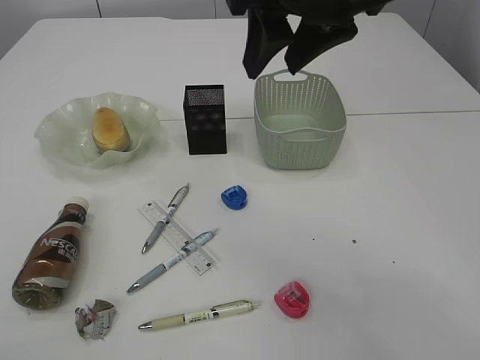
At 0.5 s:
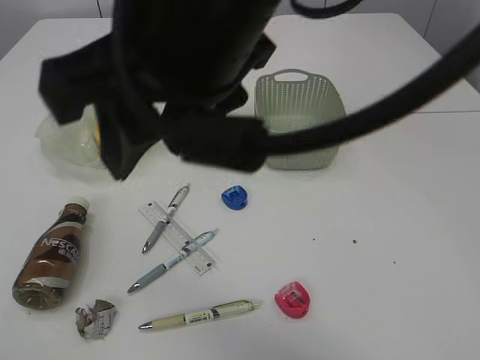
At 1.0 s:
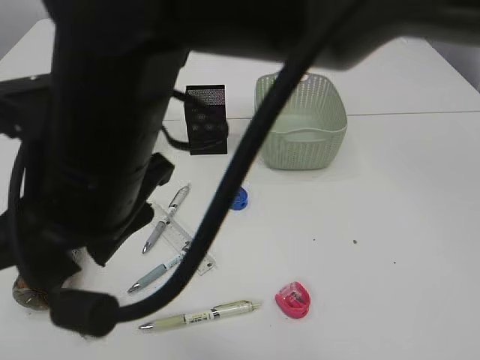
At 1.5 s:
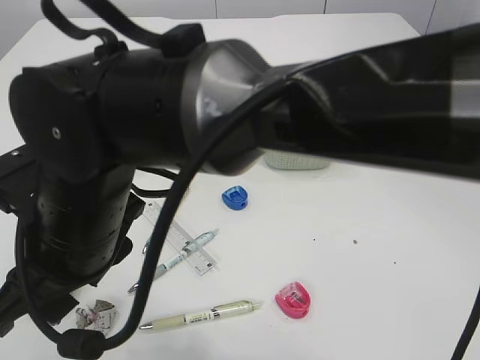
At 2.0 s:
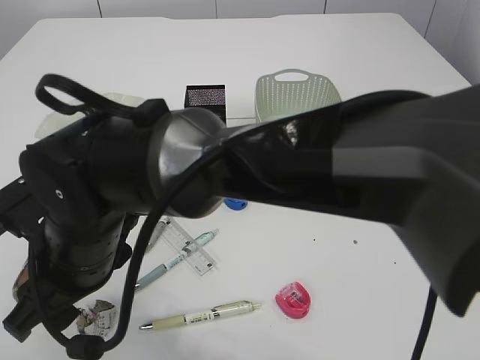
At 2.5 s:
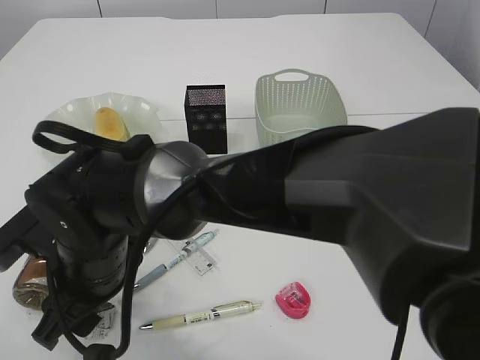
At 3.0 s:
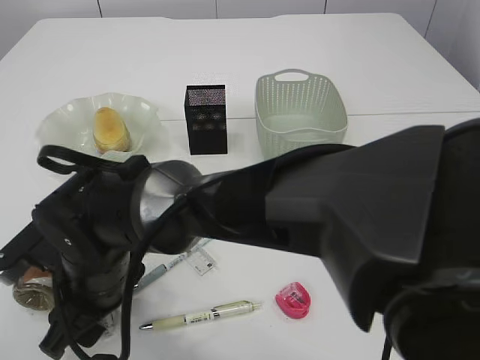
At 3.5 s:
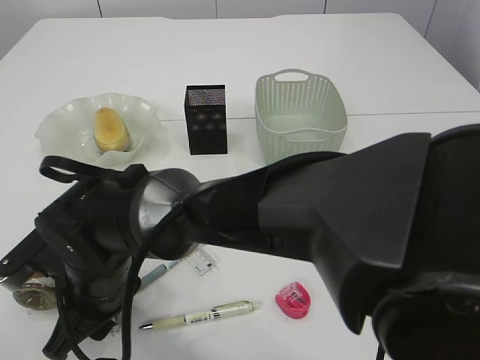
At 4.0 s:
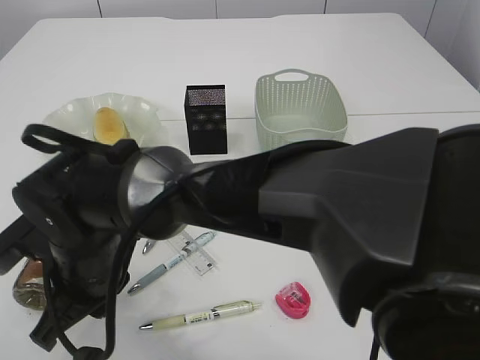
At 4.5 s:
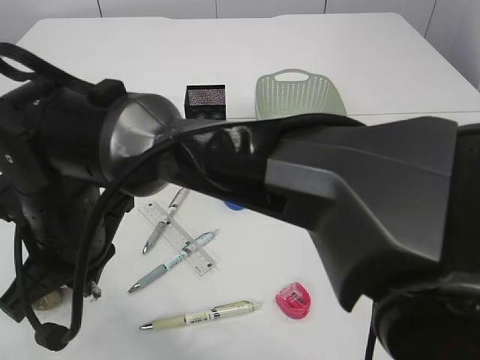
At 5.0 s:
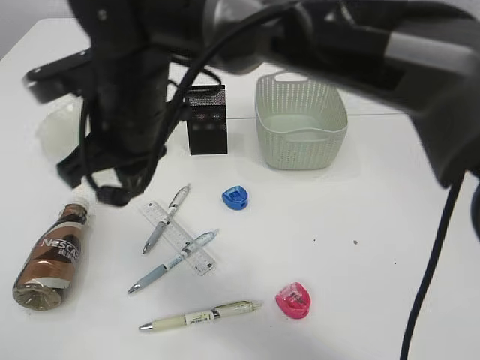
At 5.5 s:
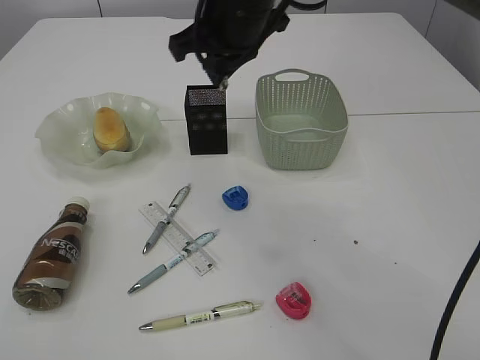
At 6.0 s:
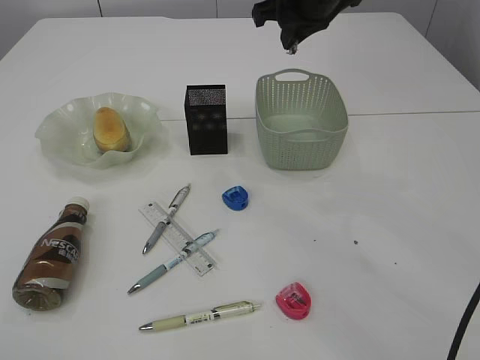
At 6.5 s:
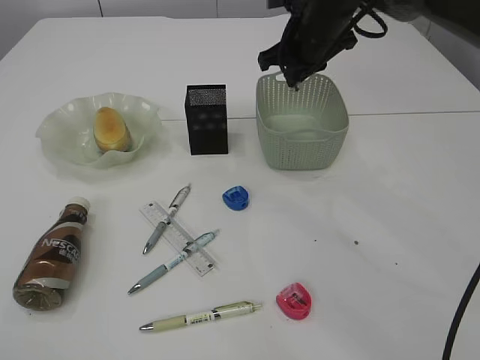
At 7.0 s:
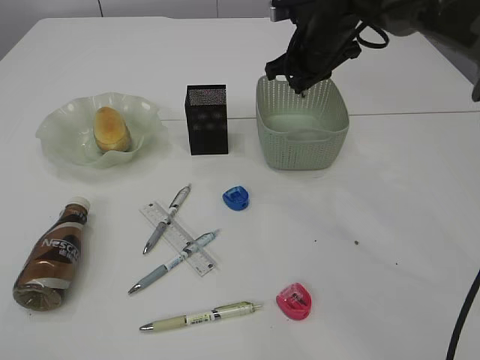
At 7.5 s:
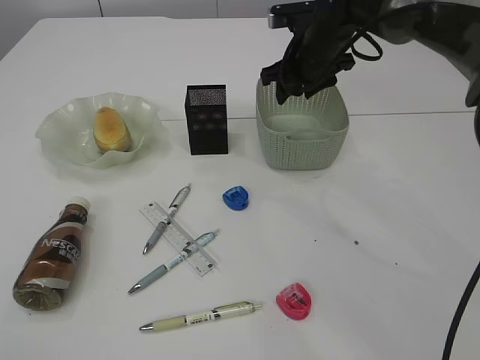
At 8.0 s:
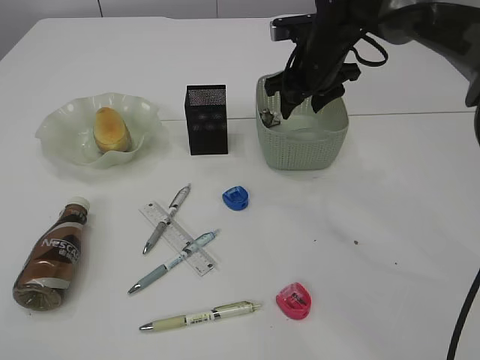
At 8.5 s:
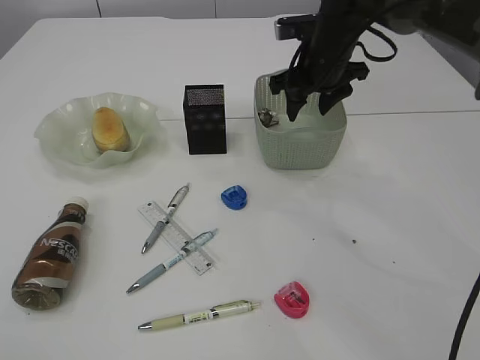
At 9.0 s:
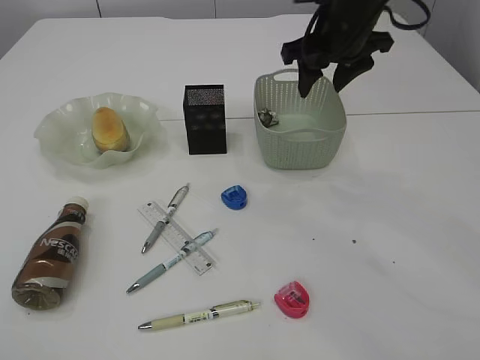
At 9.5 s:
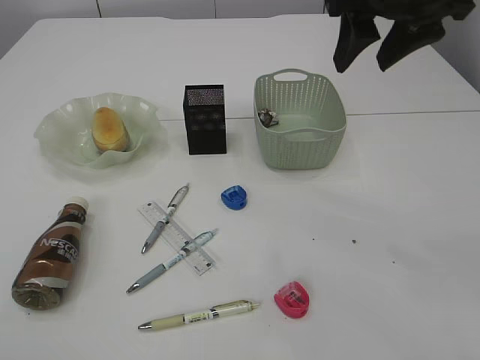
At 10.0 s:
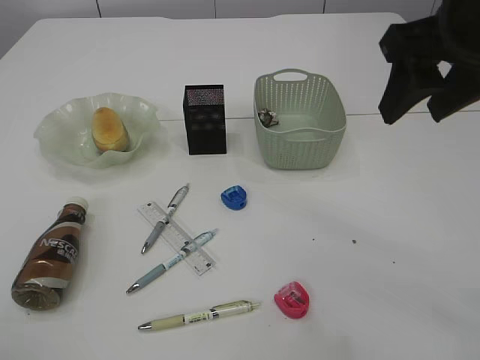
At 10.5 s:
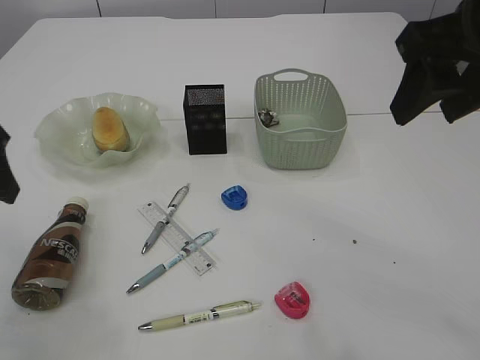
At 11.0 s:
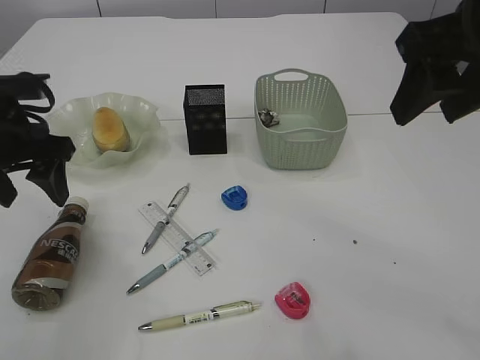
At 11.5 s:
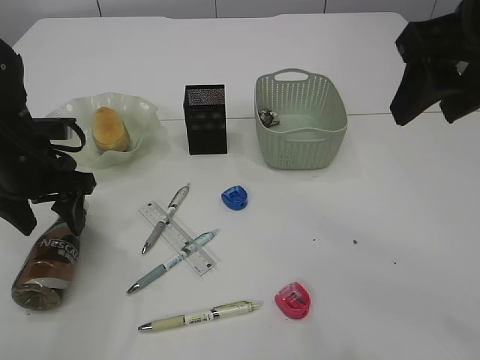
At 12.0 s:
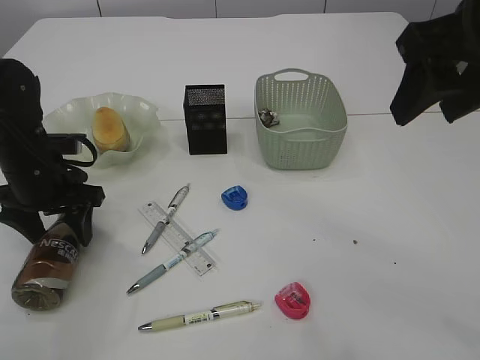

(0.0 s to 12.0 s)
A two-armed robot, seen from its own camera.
Step, 0.0 s - 4.5 s: Pick up the waste paper.
Step, 5.0 s - 7.5 s: Place the waste paper in the basket.
0.0 s - 2.0 s: The left gripper is displaced backward by about 10 cm. Meanwhile the right gripper travels to the left and downward by about 30 cm.
2.0 s - 4.0 s: The right gripper closes.
4.0 s - 6.0 s: The right gripper heads to the right, forward and upward, covering roughly 40 cm.
6.0 s - 8.0 s: The right gripper travels downward by approximately 10 cm, and opens.
8.0 s - 10.0 s: The right gripper is displaced backward and upward by roughly 25 cm. Meanwhile the left gripper shifts about 15 cm forward and downward.
10.0 s - 12.0 s: The left gripper is displaced downward and forward by approximately 25 cm, and opens up.

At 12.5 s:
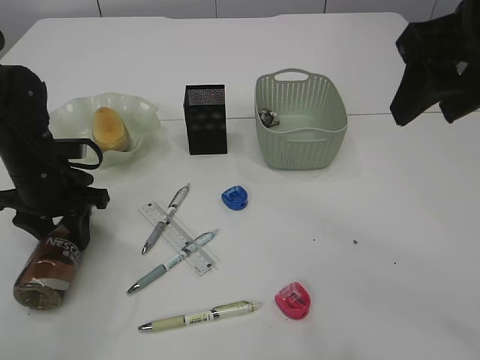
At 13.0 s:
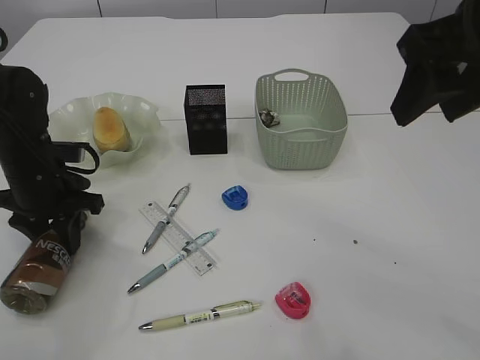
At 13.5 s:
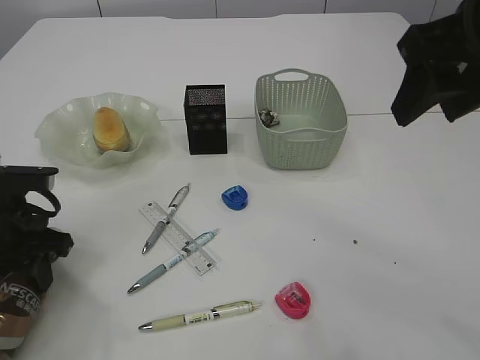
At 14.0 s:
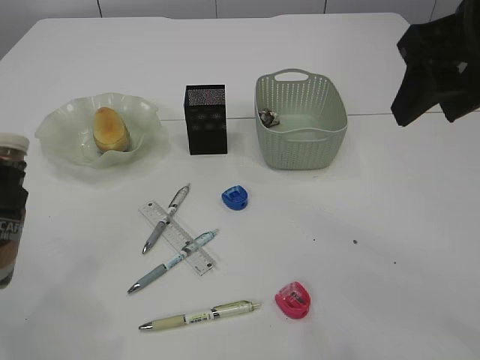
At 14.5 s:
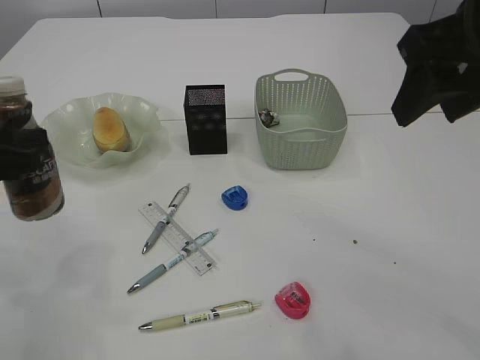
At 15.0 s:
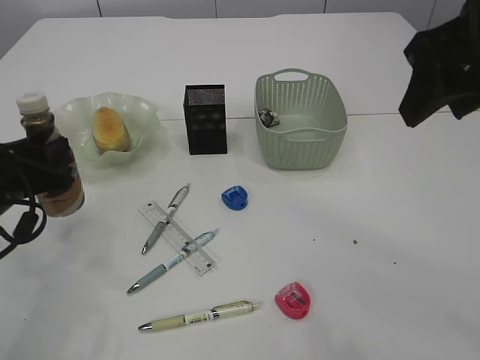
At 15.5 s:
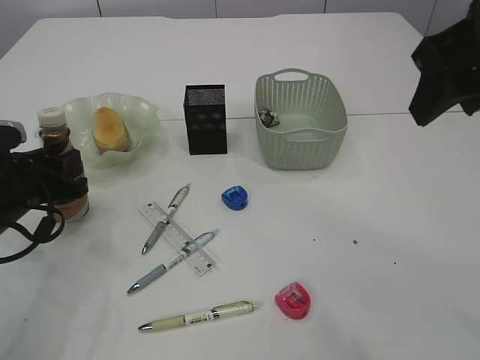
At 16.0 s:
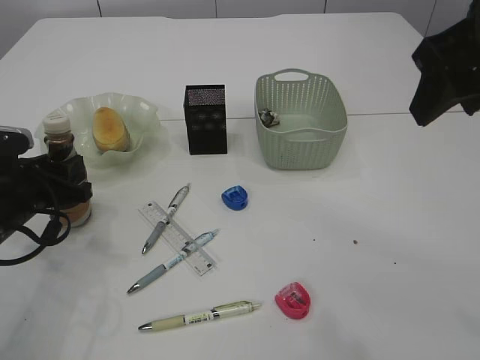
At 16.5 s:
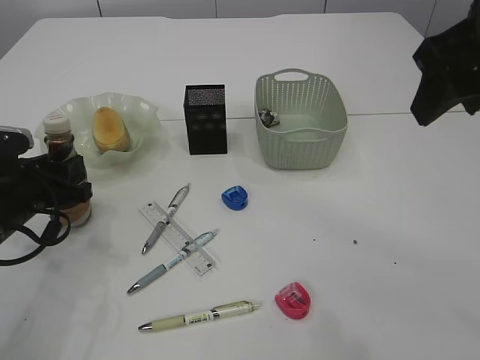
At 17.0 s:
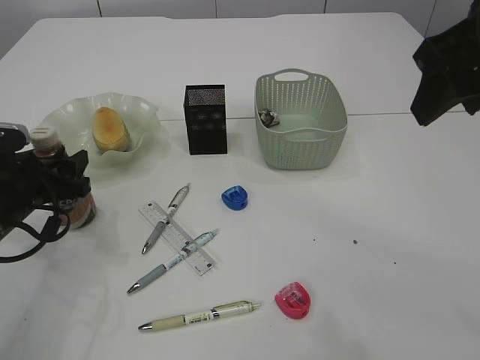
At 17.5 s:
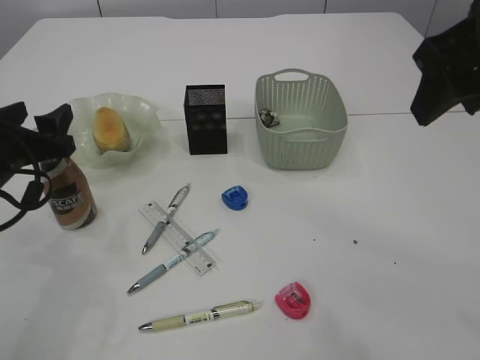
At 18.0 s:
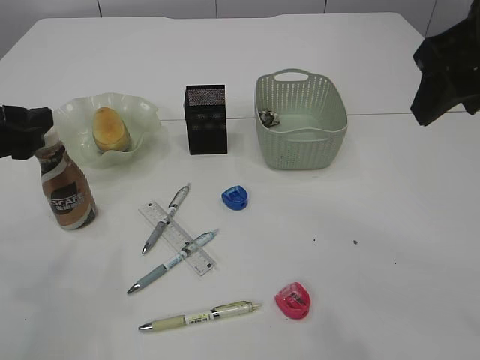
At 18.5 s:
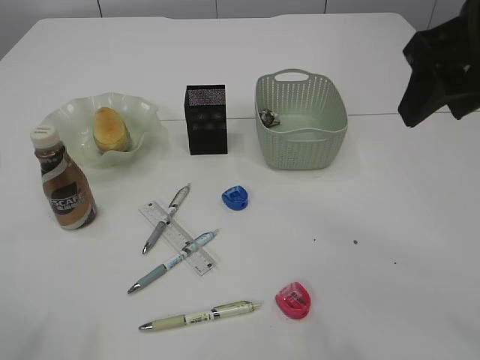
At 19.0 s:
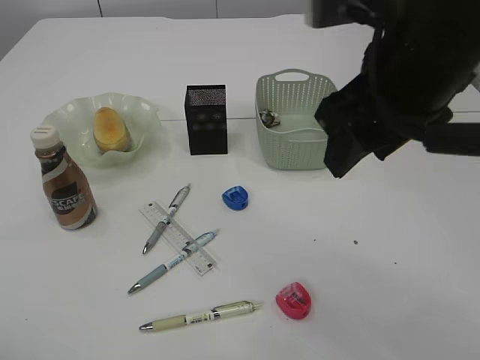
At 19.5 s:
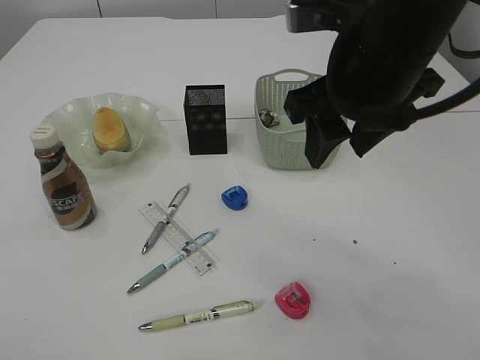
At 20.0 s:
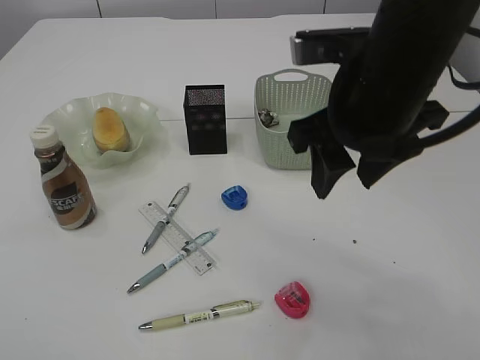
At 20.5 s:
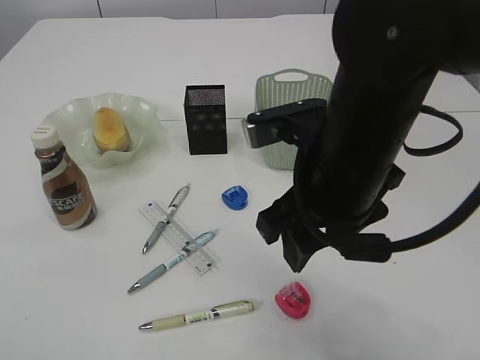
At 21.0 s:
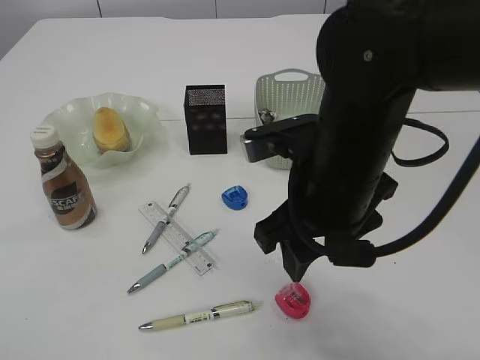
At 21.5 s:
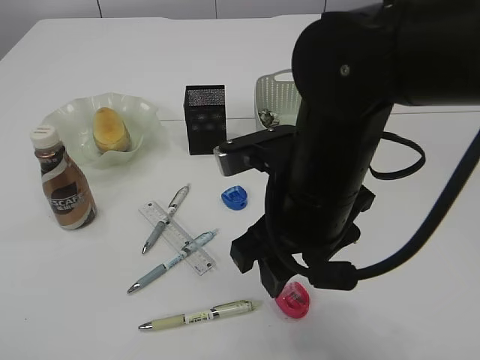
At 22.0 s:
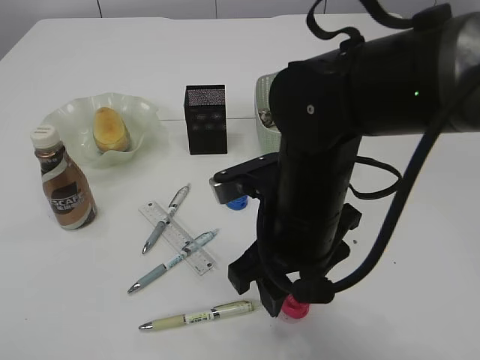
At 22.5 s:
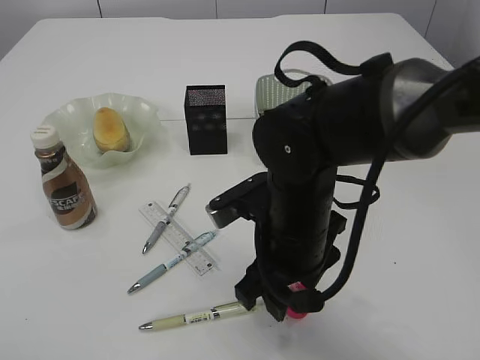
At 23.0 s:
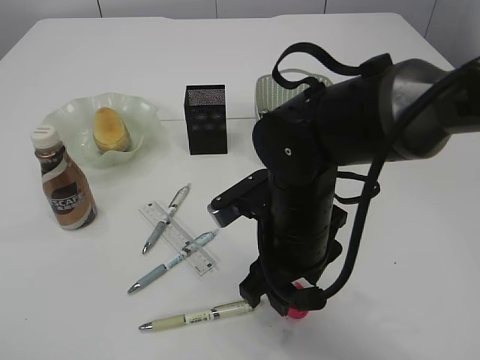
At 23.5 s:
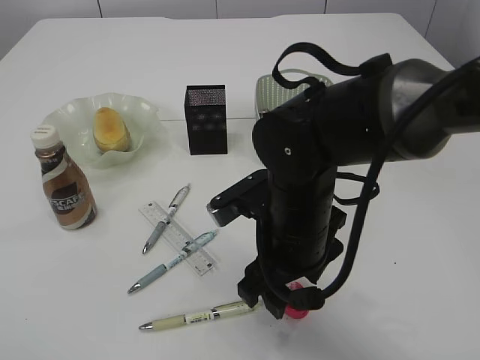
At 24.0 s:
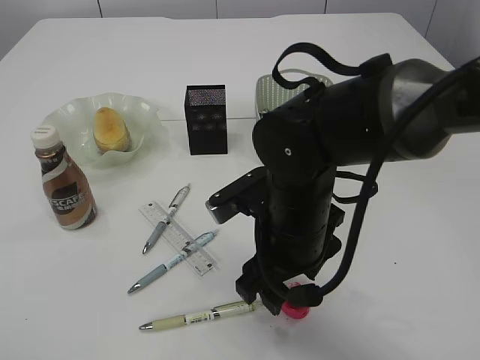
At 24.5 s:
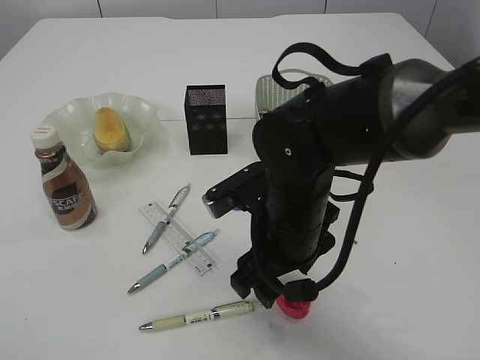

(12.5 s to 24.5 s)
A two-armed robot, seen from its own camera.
Step, 14.5 s - 18.0 s: Place the bottle.
12.5 s - 14.5 s: The left gripper goes some 15 cm backward and upward.
14.5 s - 16.5 s: The left gripper heads downward and forward, covering approximately 10 cm.
16.5 s - 18.5 s: The left gripper travels upward and backward by about 20 cm.
18.5 s - 20.5 s: The right gripper moves downward and to the left, about 15 cm; the left gripper moves backward, some 10 cm.
20.5 s - 22.5 s: The right gripper shifts about 10 cm downward. Meanwhile the left gripper is displaced backward by about 5 cm.
22.5 s - 24.5 s: There are only small adjustments of the grippers.

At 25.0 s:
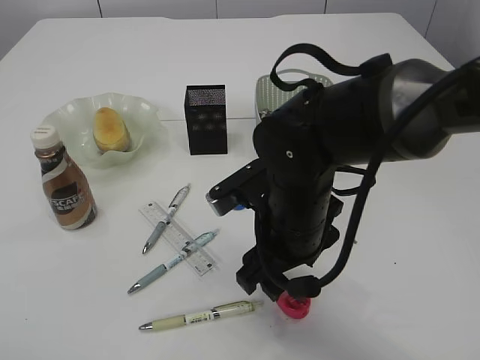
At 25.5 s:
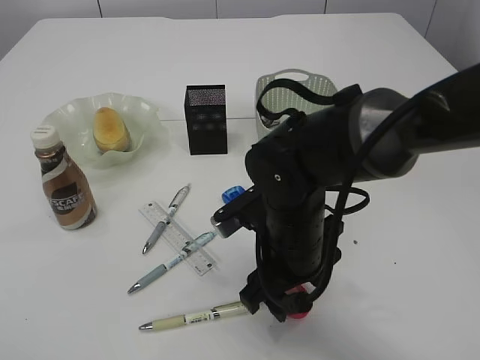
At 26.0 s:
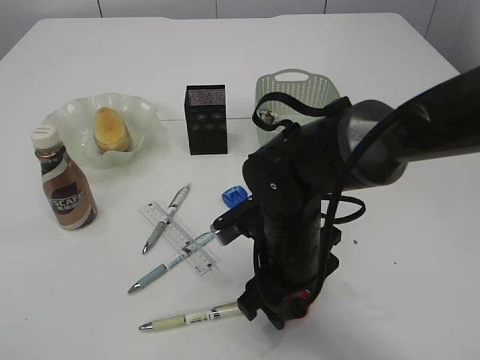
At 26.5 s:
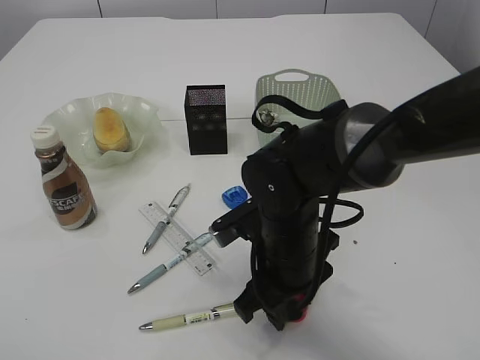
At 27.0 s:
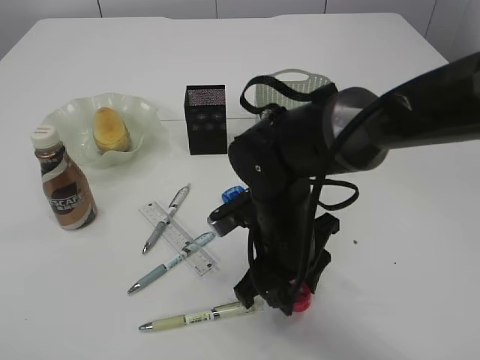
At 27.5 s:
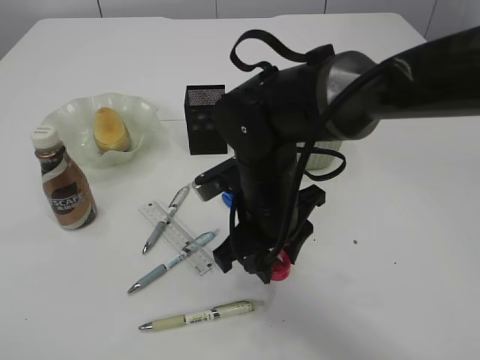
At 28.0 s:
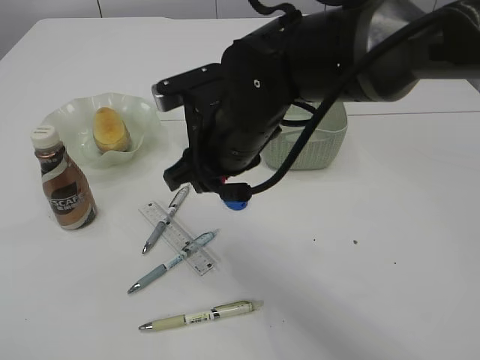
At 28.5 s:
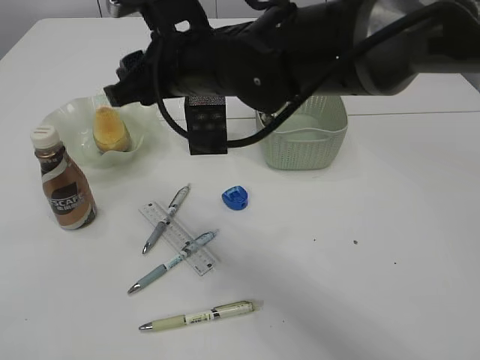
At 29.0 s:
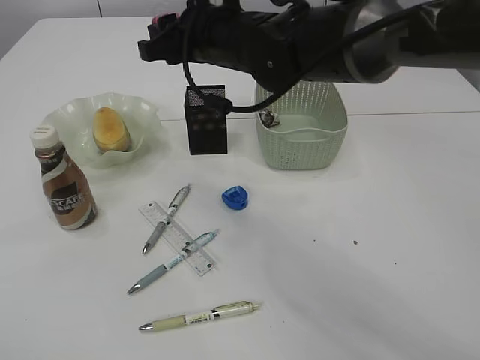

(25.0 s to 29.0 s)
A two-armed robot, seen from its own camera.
Step, 25.0 s - 27.5 s: Pick up the red pencil sharpener.
25.0 s - 27.0 s: The right gripper closes.
27.0 s - 29.0 s: The right gripper is displaced upward and forward by roughly 20 cm.
